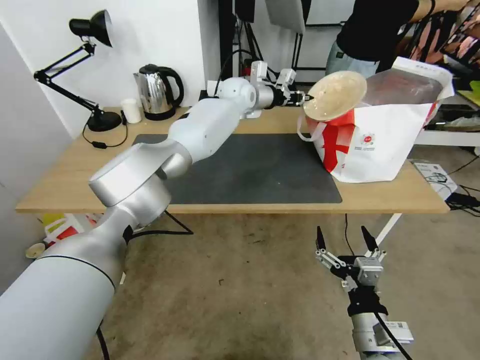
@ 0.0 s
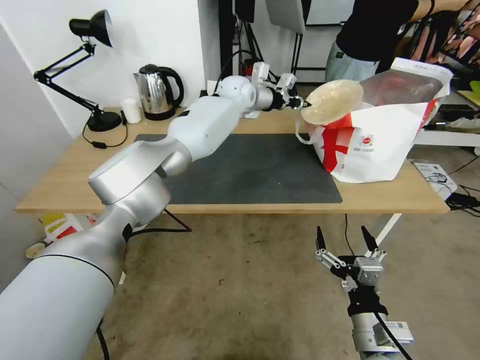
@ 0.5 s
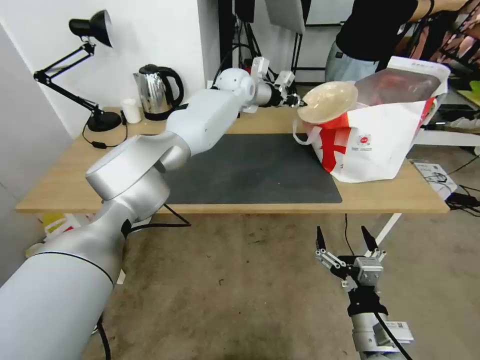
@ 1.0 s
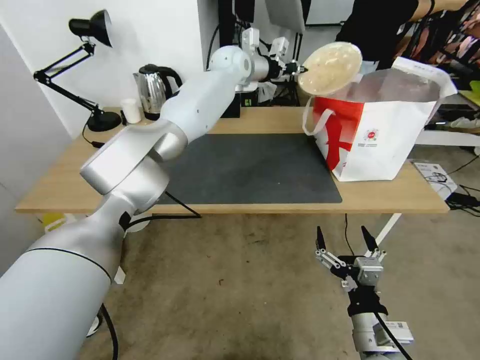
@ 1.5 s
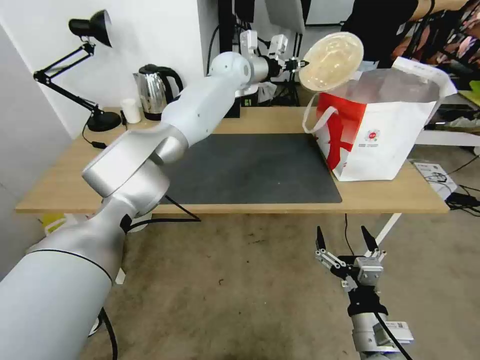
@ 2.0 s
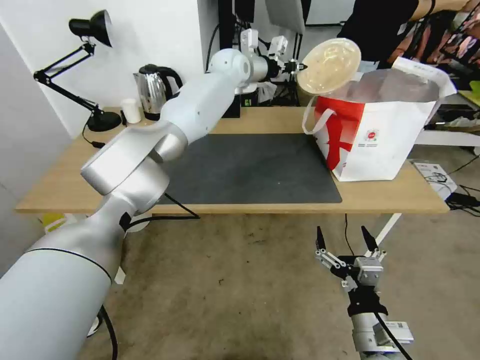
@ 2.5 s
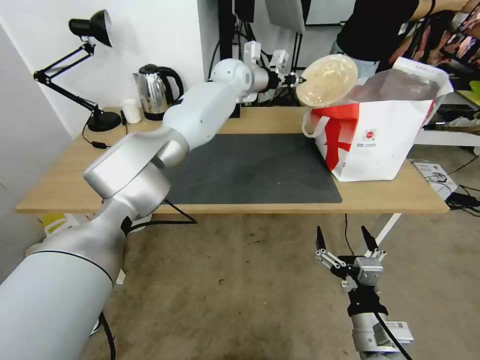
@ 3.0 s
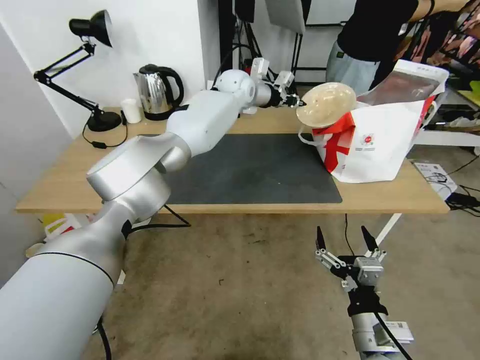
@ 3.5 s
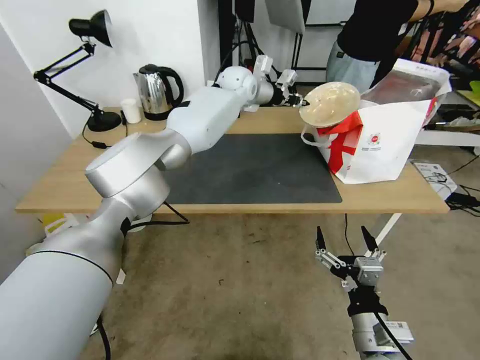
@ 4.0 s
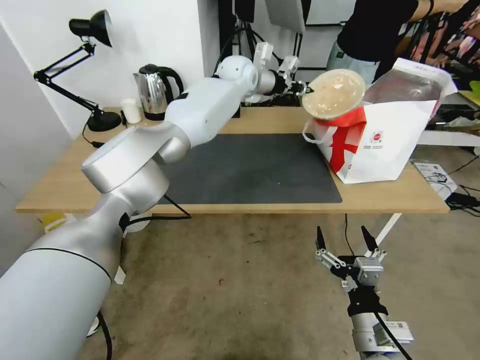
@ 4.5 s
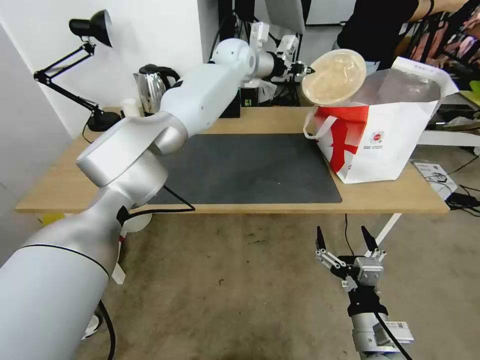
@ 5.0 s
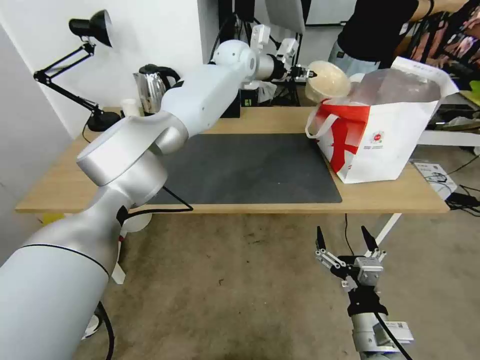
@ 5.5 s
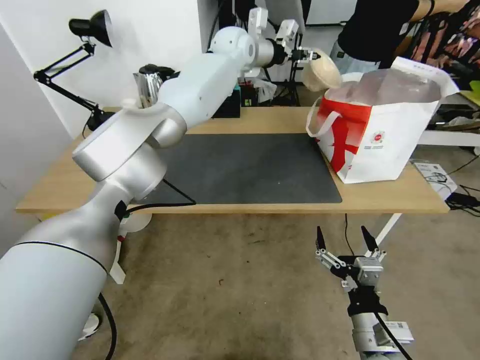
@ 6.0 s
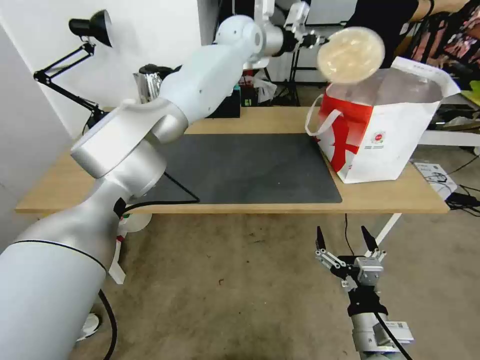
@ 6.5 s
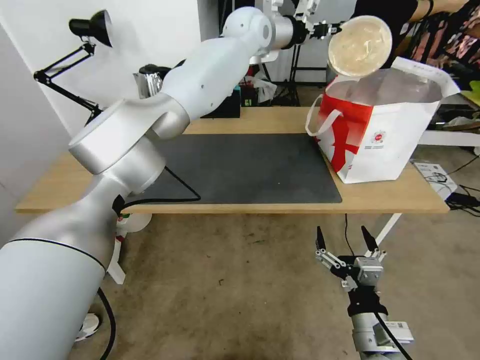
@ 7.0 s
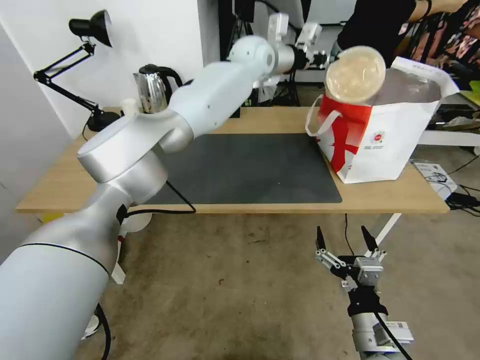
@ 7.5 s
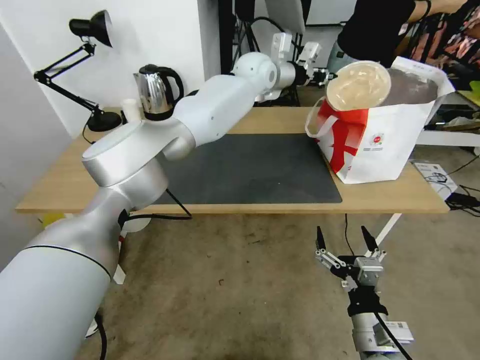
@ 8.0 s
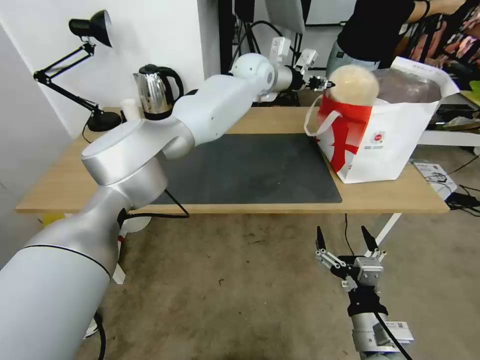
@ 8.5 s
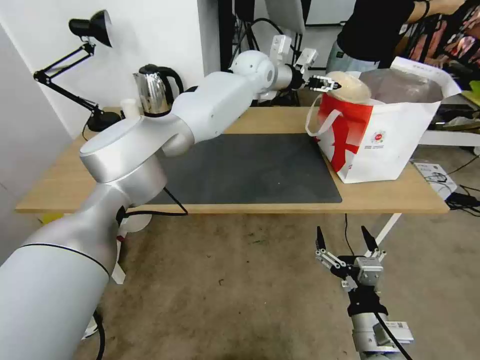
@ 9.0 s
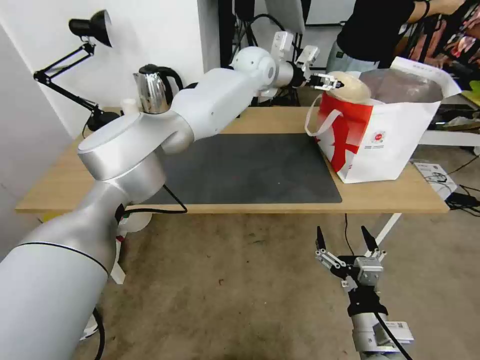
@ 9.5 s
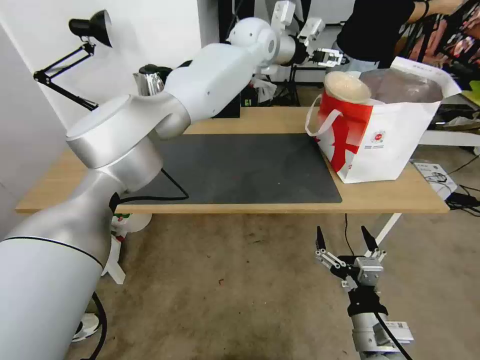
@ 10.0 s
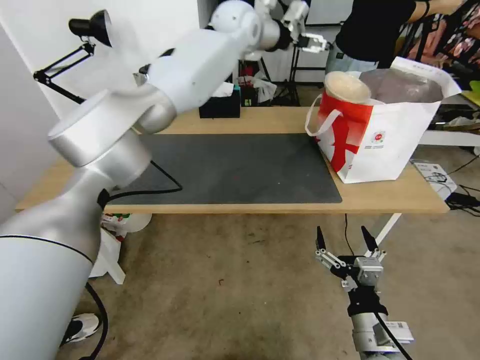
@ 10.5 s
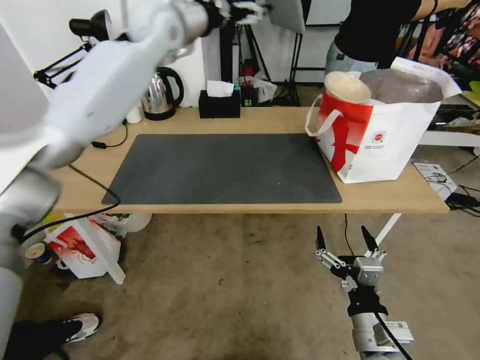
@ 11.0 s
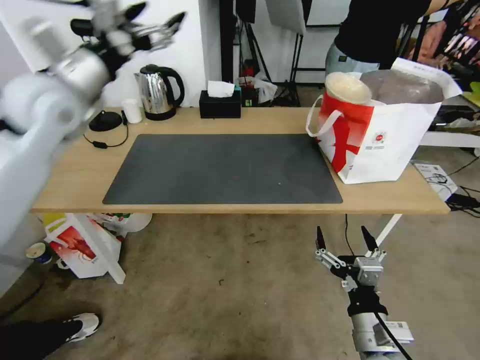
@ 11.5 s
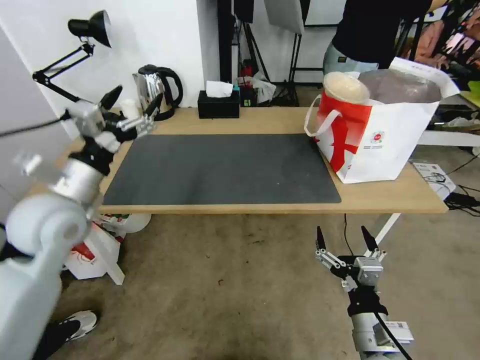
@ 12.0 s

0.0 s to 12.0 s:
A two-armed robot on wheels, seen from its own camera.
Task of the whole recording: Pick up the trash from the table and place it into the takeout bag.
0.0 to 2.0 s: The left gripper goes approximately 5 cm upward.
4.0 to 6.0 s: The left gripper goes some 10 cm upward.
6.0 to 8.0 s: The left gripper shifts about 5 cm to the right, and closes its fingers.
8.0 to 10.0 s: The left gripper travels upward by approximately 5 cm, and opens its fingers.
10.0 to 12.0 s: The left gripper goes approximately 50 cm backward, to the left and downward.

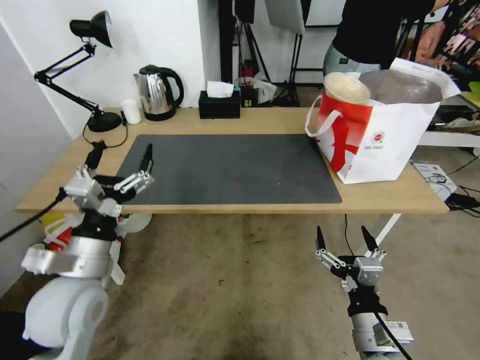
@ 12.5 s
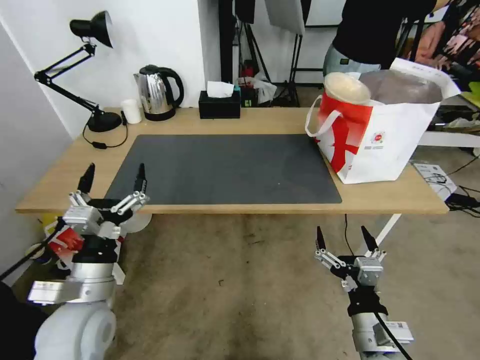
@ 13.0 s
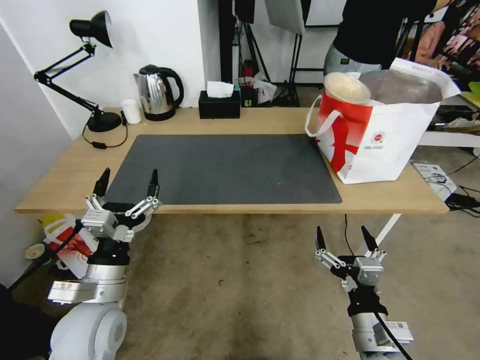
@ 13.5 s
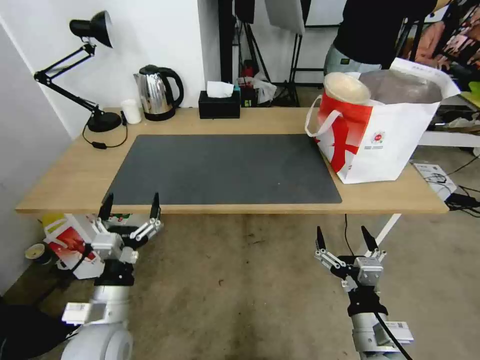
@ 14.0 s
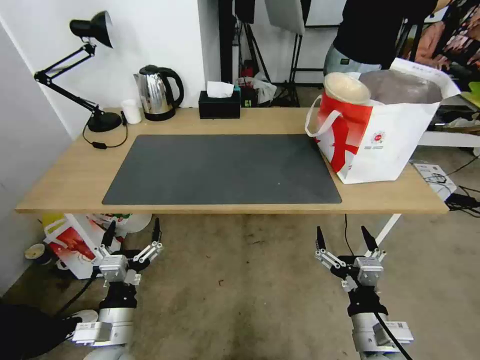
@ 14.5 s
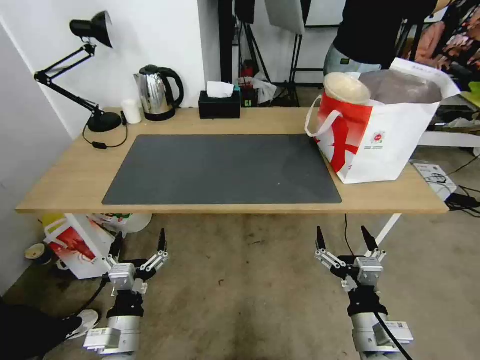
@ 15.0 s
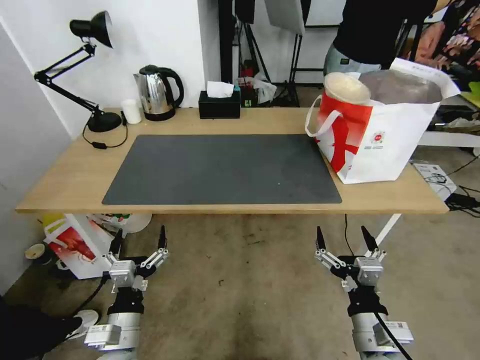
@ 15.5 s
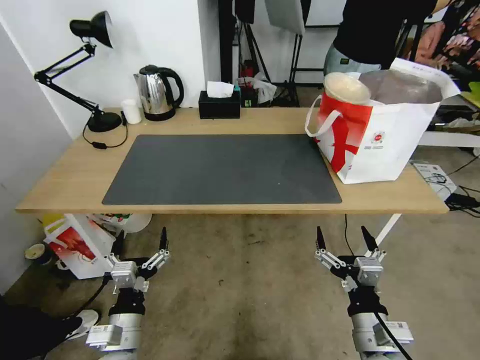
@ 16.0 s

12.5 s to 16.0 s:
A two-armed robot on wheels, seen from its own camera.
Task of the whole recording: Pick up the trash from the table and place it into the takeout bag.
12.5 to 14.5 s: The left gripper goes about 15 cm downward and backward.
14.5 to 16.0 s: The grippers make only small movements.

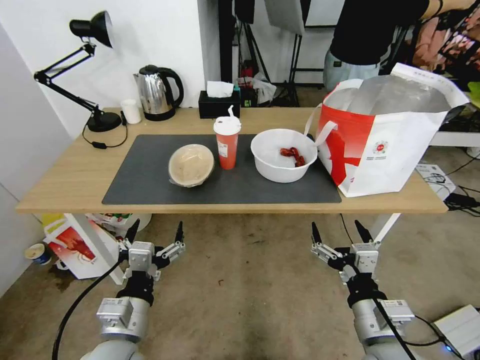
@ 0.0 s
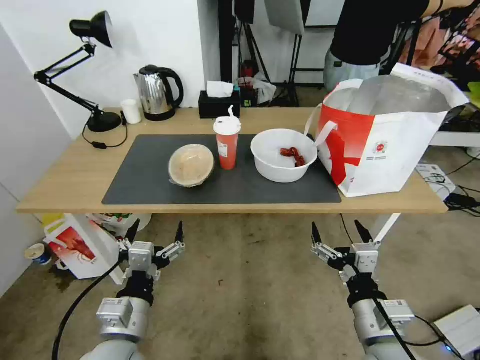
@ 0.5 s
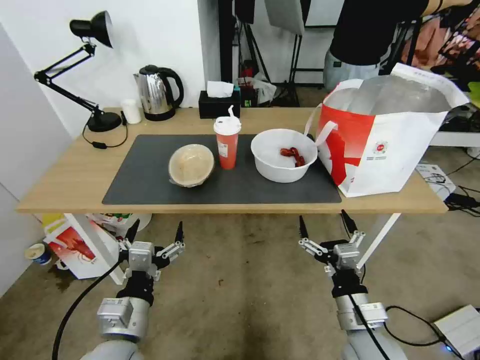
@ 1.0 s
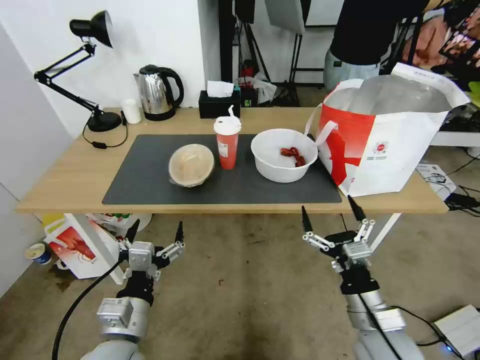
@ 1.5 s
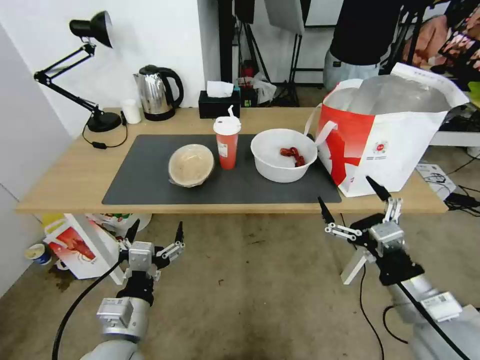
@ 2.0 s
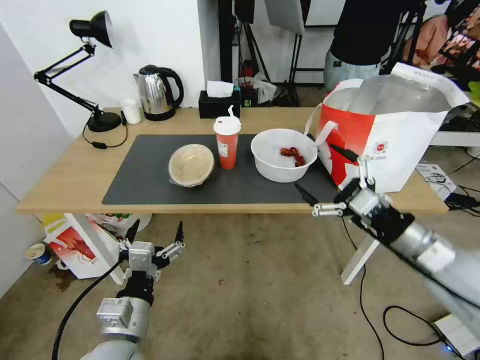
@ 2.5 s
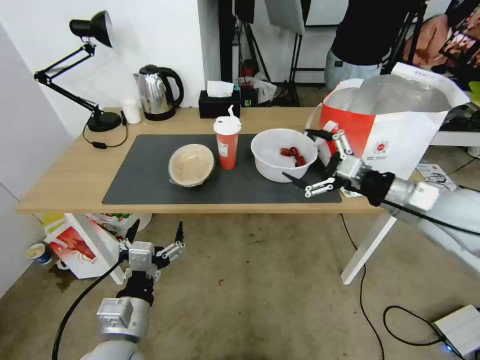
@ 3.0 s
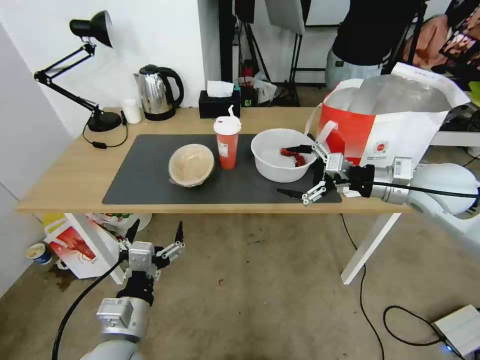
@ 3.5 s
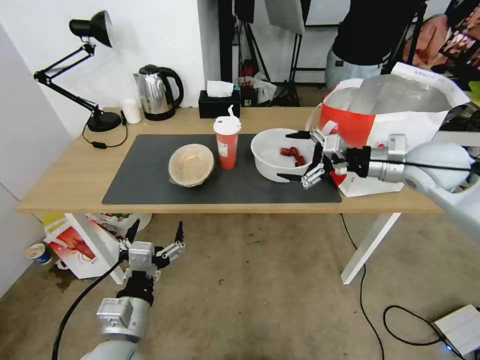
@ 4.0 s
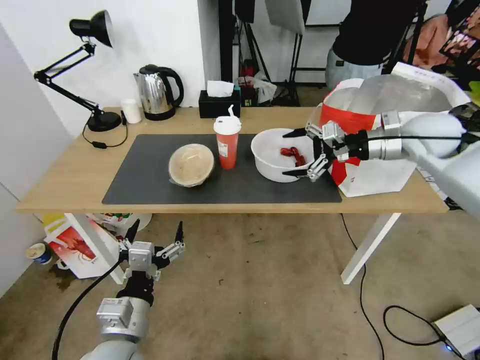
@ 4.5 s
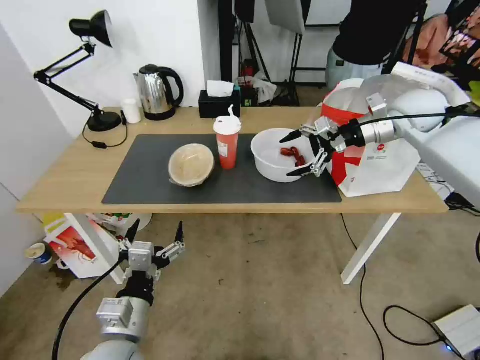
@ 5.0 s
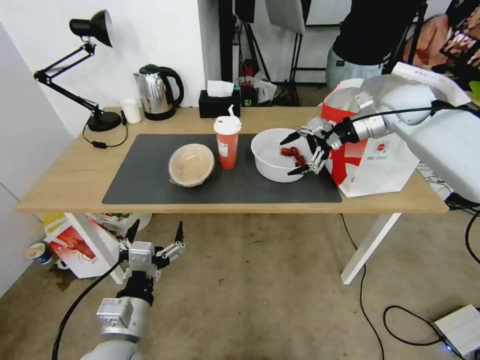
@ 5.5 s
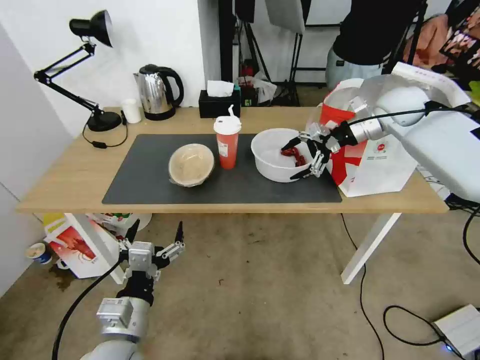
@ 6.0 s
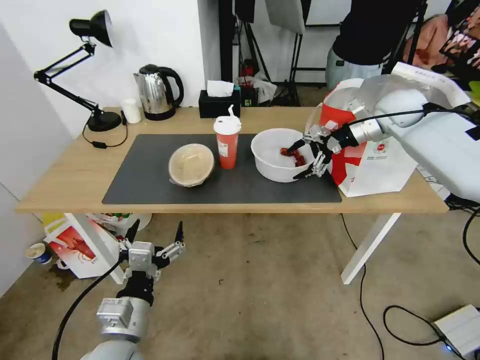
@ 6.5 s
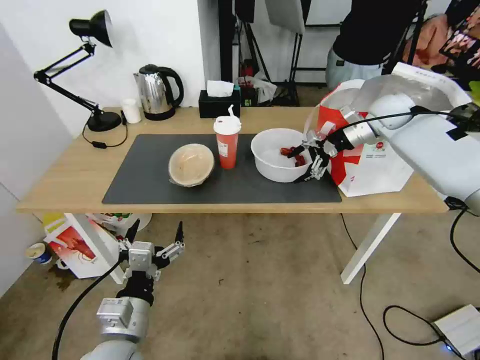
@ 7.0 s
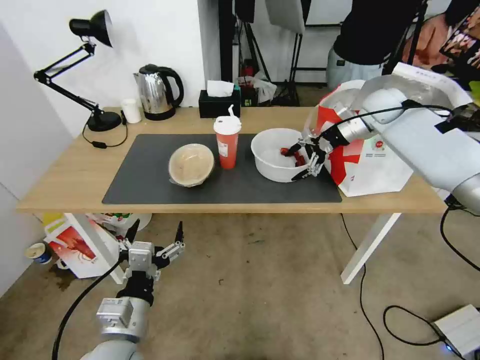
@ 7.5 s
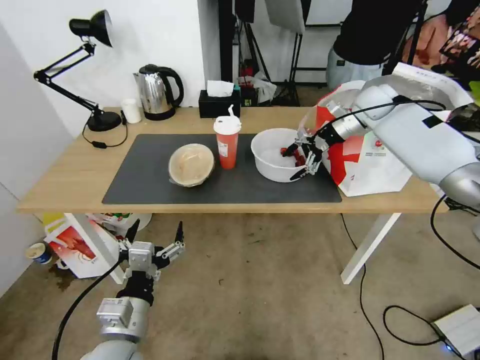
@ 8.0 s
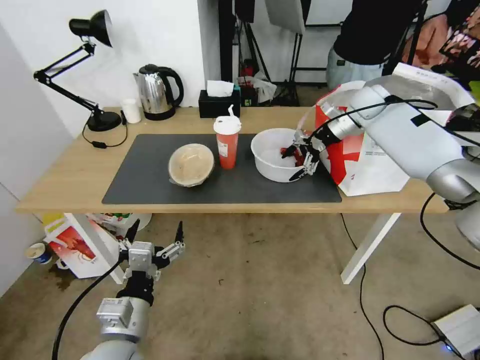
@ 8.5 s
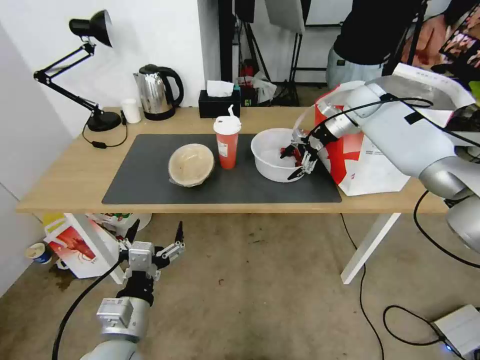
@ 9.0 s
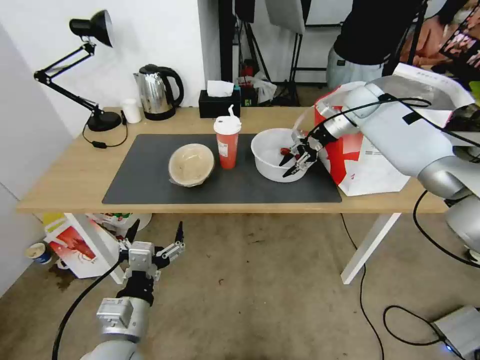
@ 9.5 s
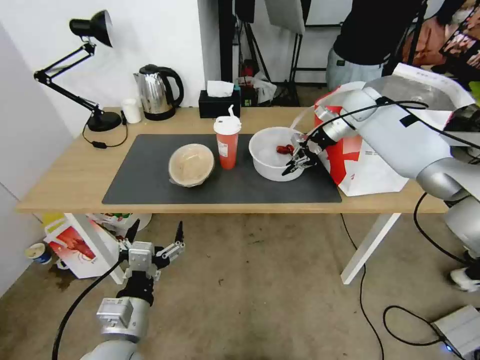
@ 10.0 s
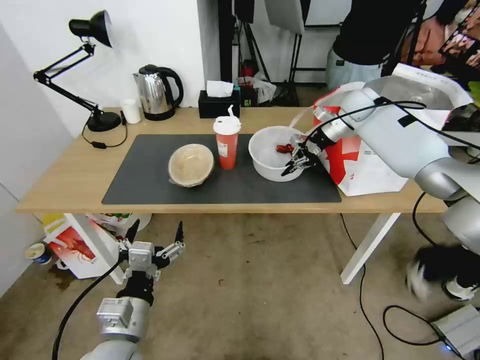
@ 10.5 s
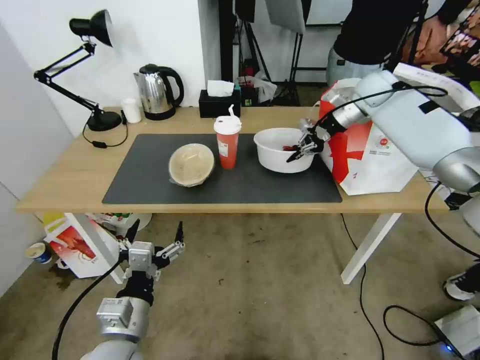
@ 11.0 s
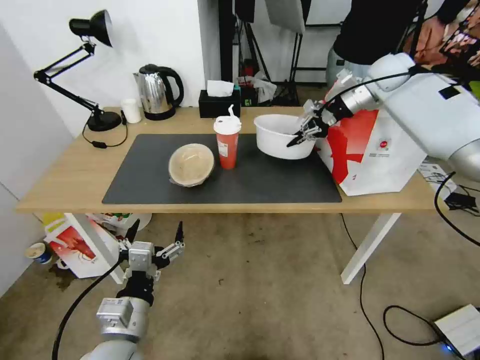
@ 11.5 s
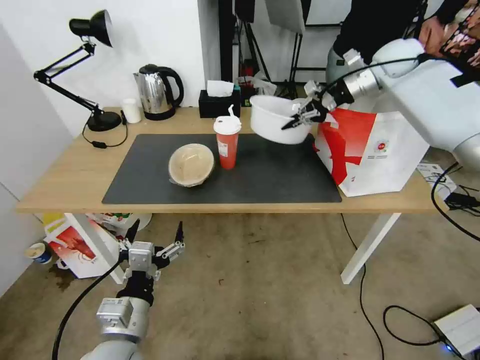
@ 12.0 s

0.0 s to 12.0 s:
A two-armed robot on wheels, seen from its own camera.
Task of the whole recording: Pick up the trash from the table and place it into the takeout bag.
2.0 to 4.0 s: The right gripper travels forward and upward by some 25 cm.
4.0 to 6.0 s: The right gripper is displaced forward by roughly 20 cm.
6.0 to 8.0 s: The right gripper travels forward by some 5 cm.
8.0 to 10.0 s: The right gripper closes.
10.0 to 12.0 s: The right gripper shifts roughly 10 cm upward.
